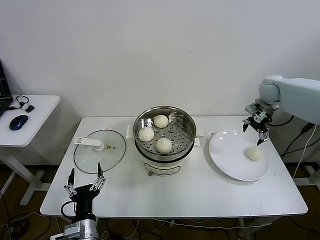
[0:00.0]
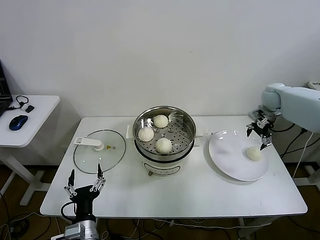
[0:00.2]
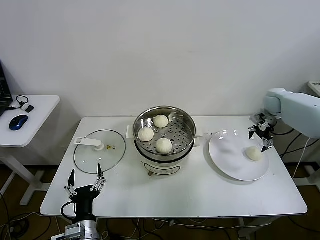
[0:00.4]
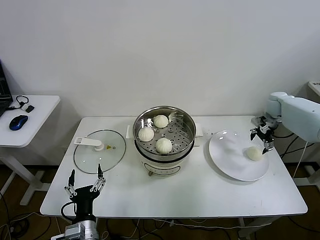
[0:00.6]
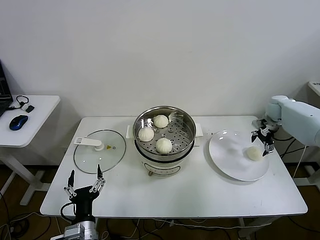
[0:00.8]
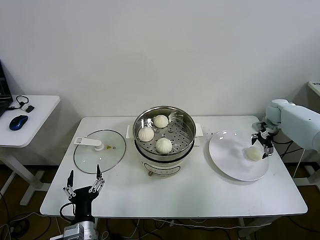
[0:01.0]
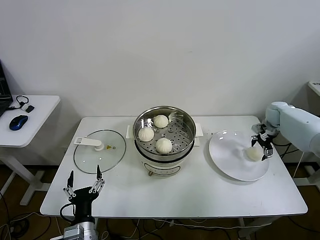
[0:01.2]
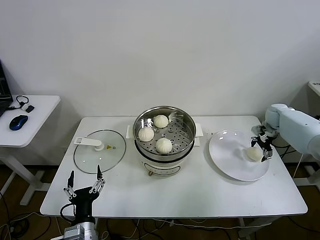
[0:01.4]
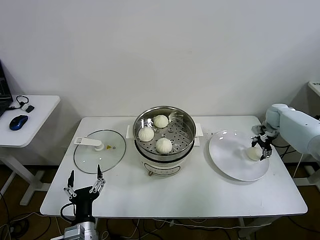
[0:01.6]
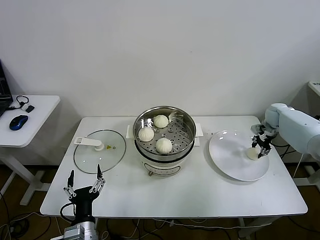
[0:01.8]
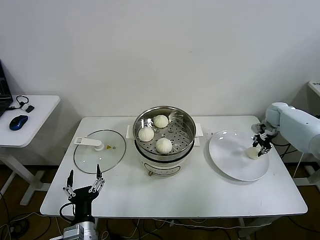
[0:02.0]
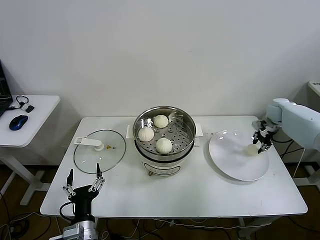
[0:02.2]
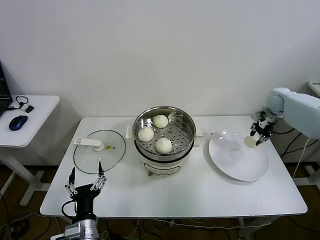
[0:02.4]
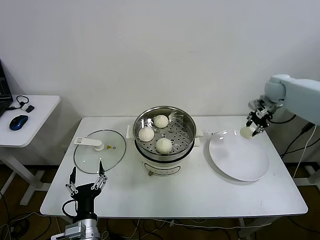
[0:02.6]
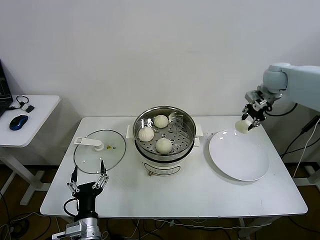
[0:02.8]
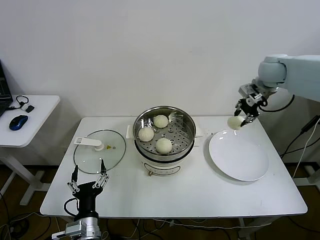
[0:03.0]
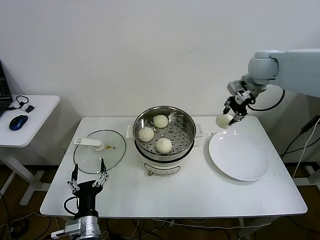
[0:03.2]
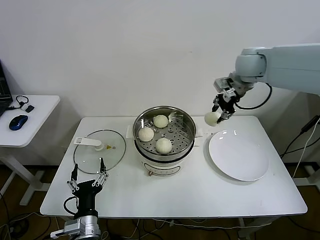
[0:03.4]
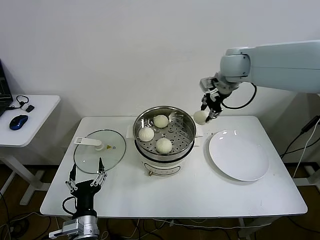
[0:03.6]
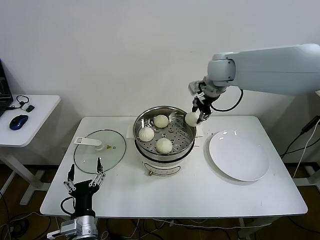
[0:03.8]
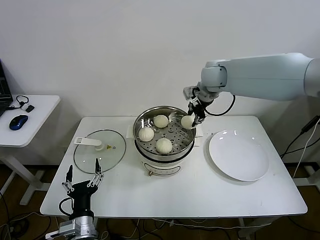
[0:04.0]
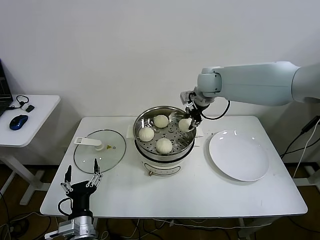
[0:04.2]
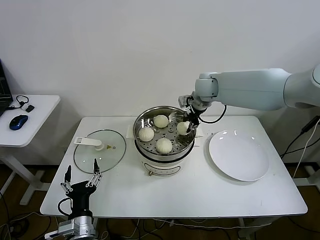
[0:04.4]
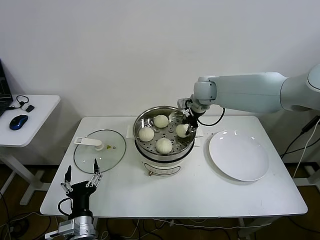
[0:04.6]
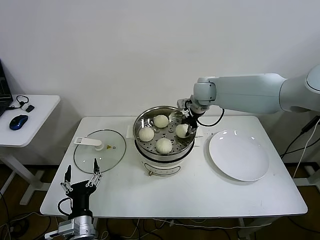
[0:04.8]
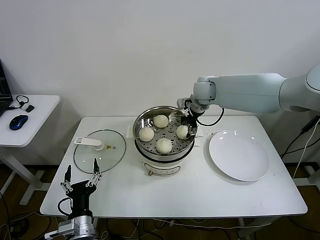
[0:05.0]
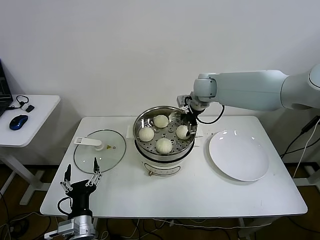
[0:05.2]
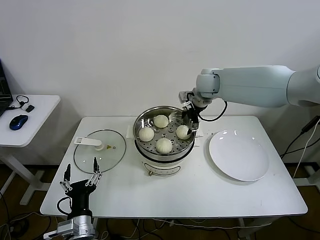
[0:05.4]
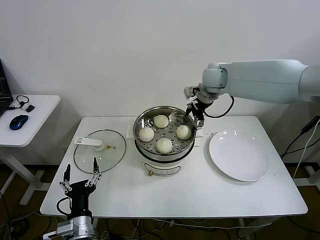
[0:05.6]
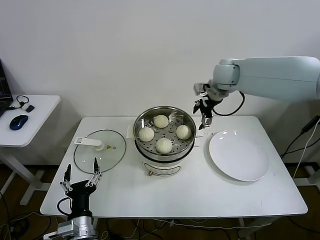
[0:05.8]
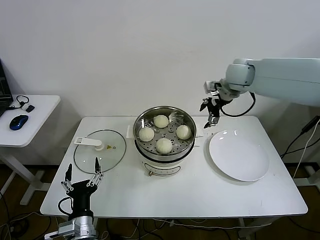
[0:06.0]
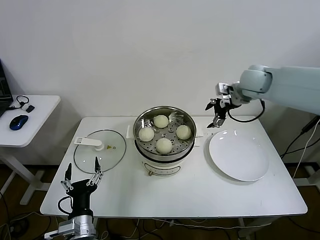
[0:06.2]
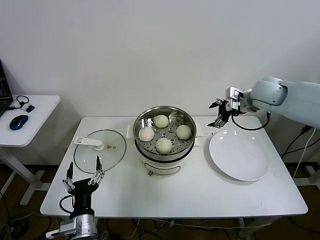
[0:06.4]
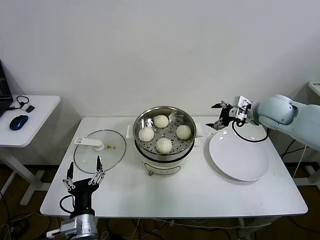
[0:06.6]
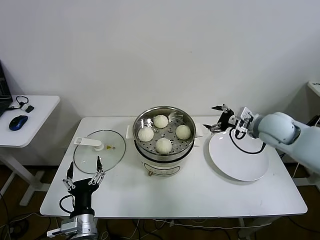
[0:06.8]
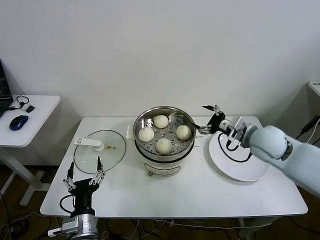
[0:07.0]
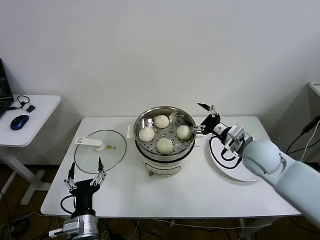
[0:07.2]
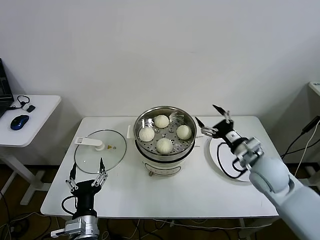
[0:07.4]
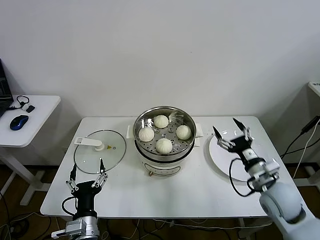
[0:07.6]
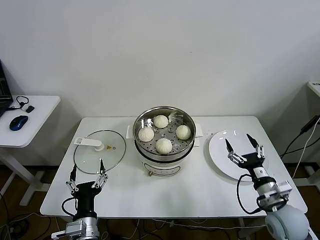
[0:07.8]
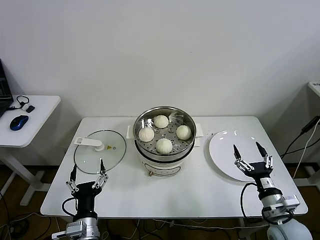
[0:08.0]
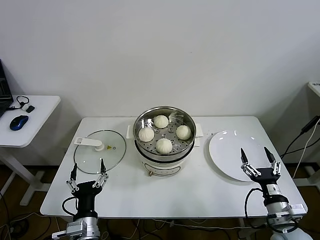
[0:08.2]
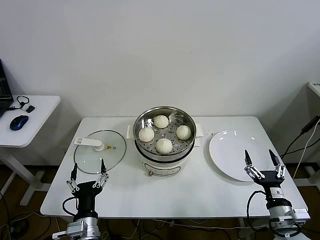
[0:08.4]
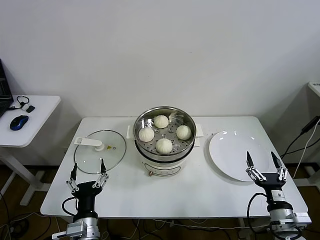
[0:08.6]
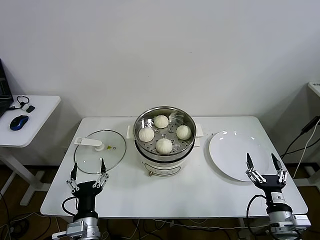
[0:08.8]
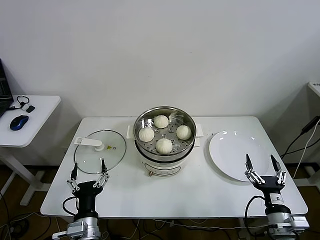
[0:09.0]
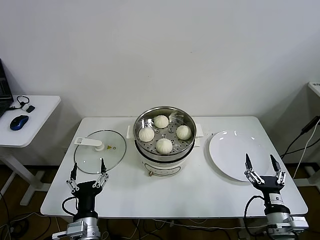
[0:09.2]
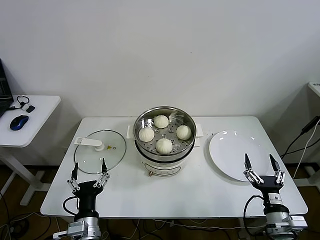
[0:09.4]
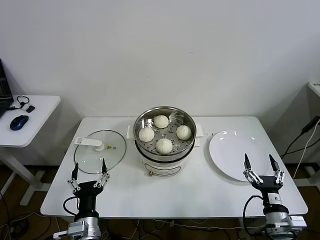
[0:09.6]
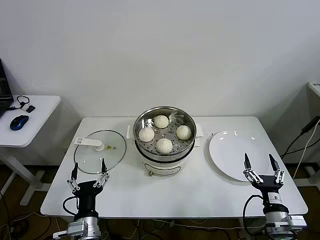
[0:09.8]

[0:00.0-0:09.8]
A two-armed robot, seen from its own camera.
Step, 0:00.0 to 0:01.8: Grasp the baozi in the plate with right gripper.
Step, 0:02.0 to 0:05.2: Place the baozi on the steamer with right gripper.
0:00.0 to 0:01.4: The right gripper travels downward and to the right by roughly 15 cm.
0:01.4 to 0:02.8: The right gripper is displaced upward and to the left by approximately 20 cm, and closes up.
0:02.8 to 0:04.2: The right gripper heads to the left, covering about 25 cm.
0:04.2 to 0:05.6: The right gripper opens up.
0:05.6 to 0:07.0: The right gripper travels backward, to the right and downward by roughly 25 cm.
0:07.0 to 0:08.4: The right gripper moves backward and downward, approximately 30 cm.
0:08.4 to 0:09.8: There are only small adjustments of the grippers.

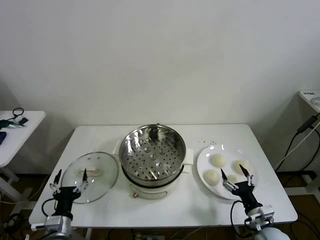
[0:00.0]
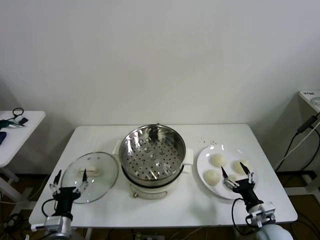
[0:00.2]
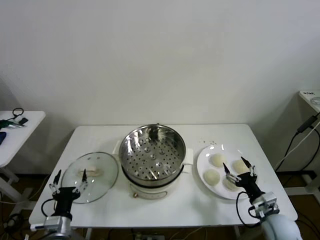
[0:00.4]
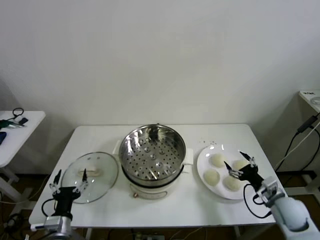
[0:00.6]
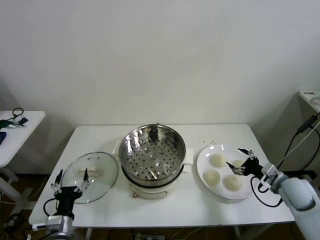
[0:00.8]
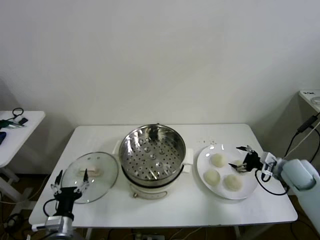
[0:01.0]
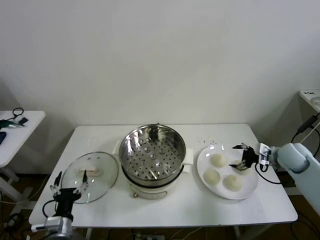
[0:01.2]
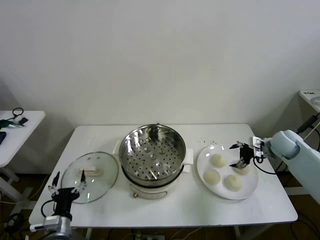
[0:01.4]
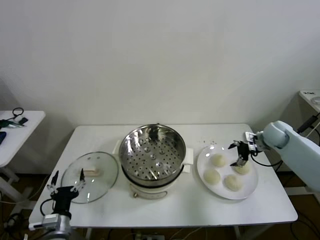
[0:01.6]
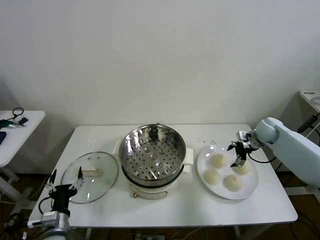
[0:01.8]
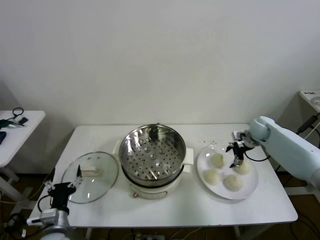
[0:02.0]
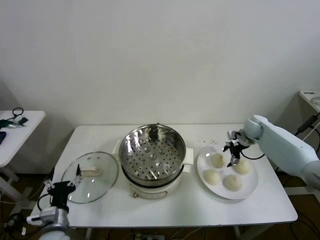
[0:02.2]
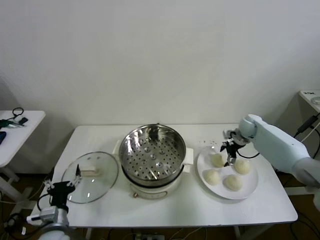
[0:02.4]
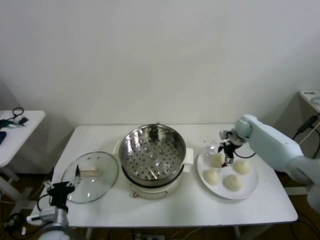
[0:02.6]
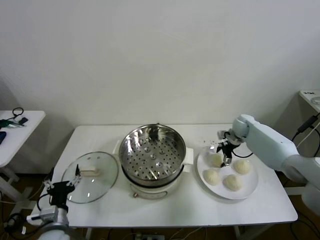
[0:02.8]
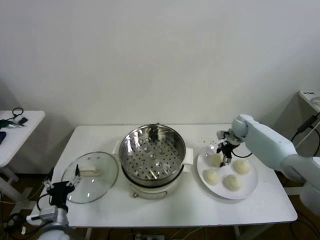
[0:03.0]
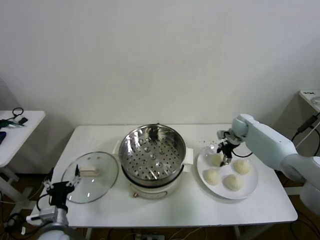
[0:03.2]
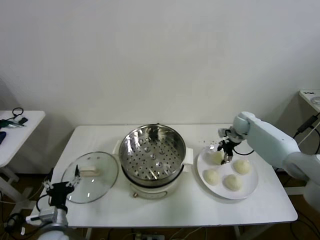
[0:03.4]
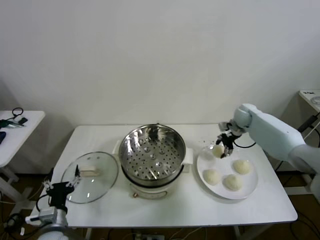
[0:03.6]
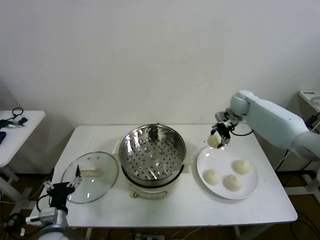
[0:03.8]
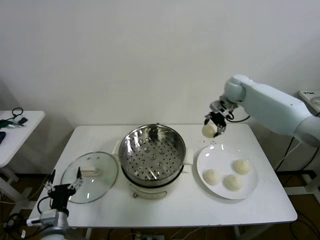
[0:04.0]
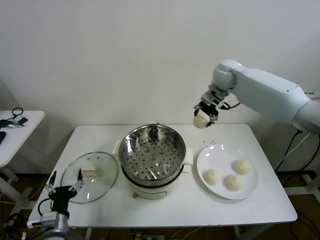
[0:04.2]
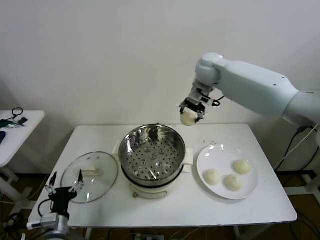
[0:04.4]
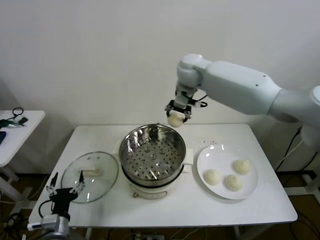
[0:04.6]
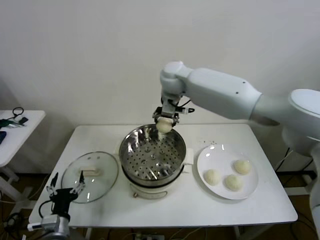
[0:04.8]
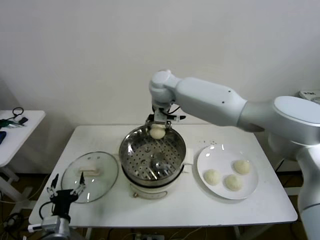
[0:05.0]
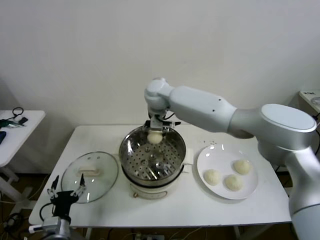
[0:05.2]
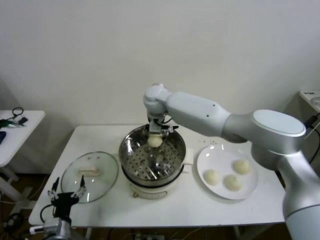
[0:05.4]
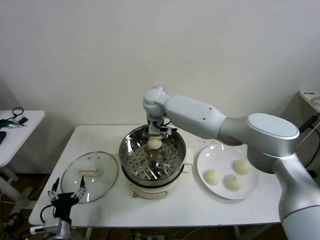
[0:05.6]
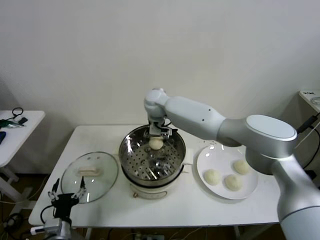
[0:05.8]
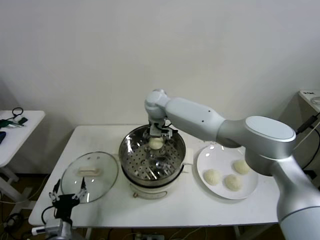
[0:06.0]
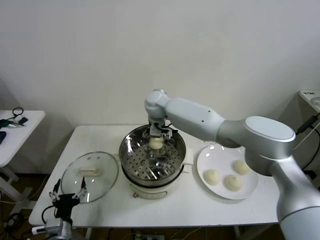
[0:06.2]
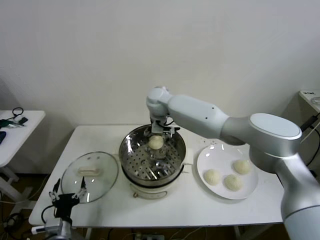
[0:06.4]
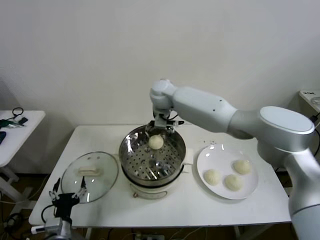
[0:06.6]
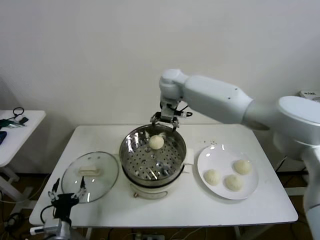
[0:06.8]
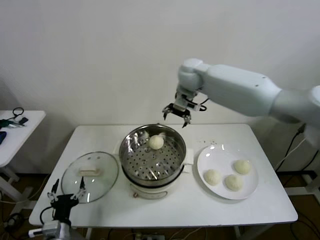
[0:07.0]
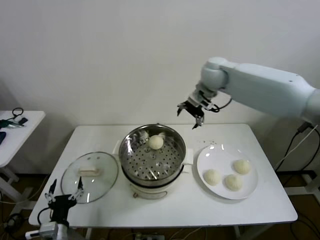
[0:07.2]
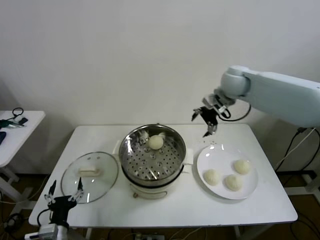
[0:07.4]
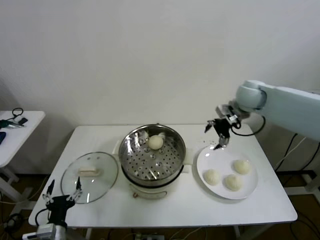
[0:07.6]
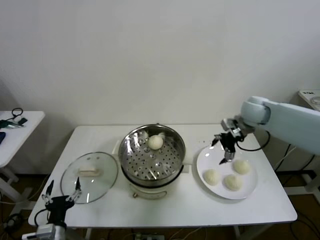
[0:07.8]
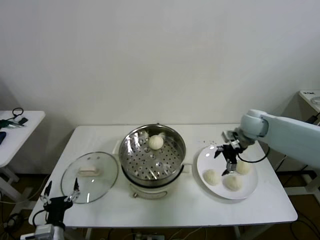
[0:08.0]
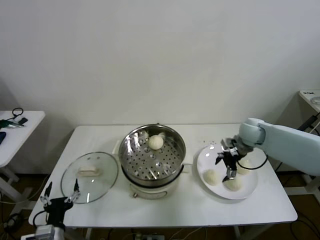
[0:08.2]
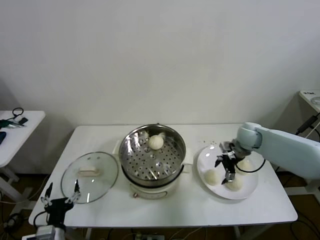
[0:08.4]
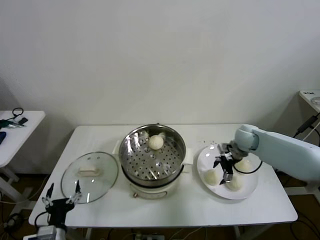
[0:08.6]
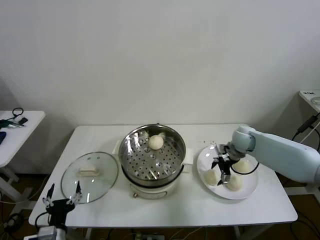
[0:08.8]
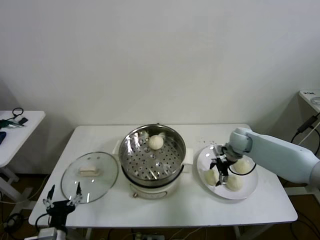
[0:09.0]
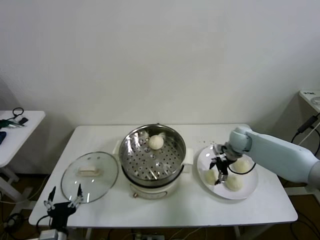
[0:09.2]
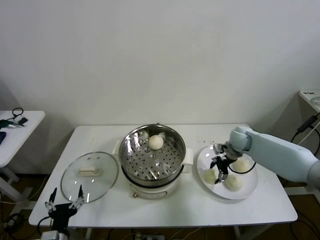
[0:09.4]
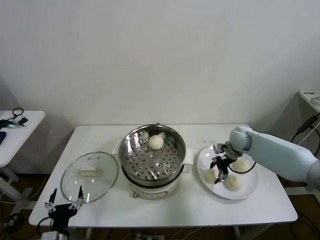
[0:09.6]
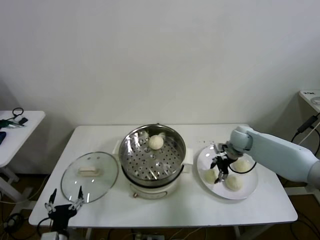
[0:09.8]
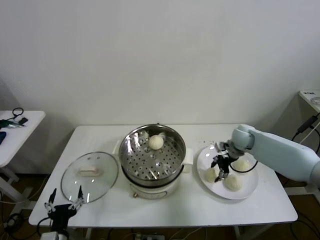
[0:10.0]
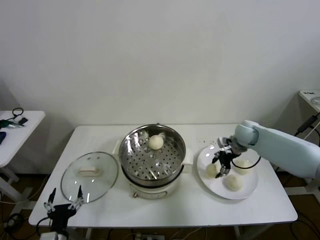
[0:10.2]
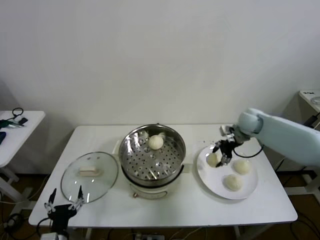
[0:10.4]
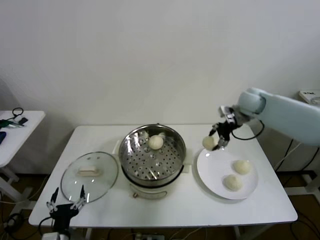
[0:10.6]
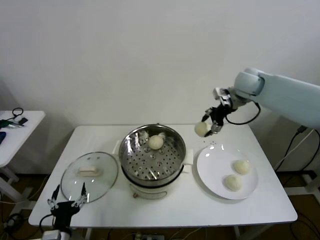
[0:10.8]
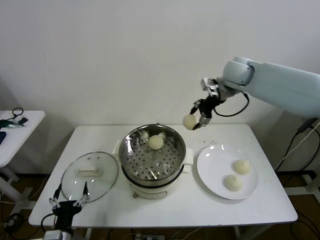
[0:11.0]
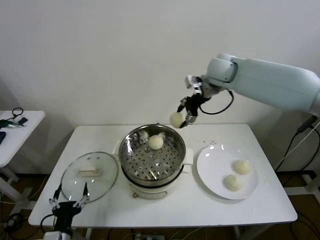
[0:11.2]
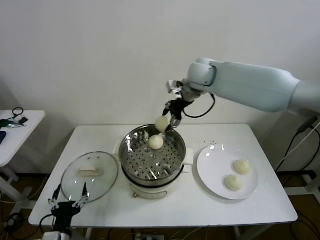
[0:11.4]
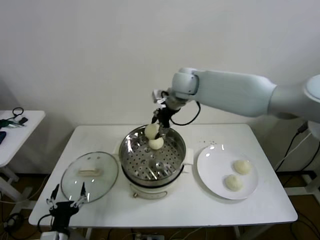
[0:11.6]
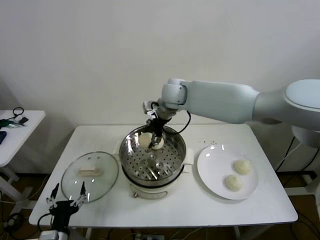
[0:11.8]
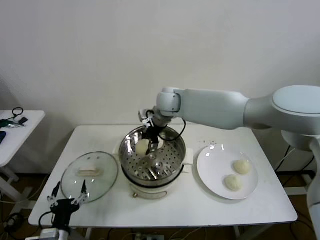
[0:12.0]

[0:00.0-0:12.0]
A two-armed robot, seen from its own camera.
Step, 0:00.0 to 0:03.0: Grasp the baozi in the plate with right gripper.
Step, 0:03.2 to 0:06.0: Place the baozi on the steamer with right gripper.
Step, 0:06.2 to 0:09.6: Grasp the baozi in the plate with right gripper.
0:01.6 to 0:03.0: The right gripper is displaced forward and to the left by approximately 10 cm, and closes its fingers.
0:03.0 to 0:04.4: The right gripper travels upward and to the left by roughly 35 cm.
0:04.4 to 0:06.0: The right gripper goes some 20 cm to the left and downward, and opens up.
0:06.0 to 0:07.6: The right gripper heads to the right, covering approximately 35 cm.
0:07.6 to 0:09.0: The right gripper is displaced downward by some 15 cm.
0:09.0 to 0:10.4: The right gripper moves upward, approximately 10 cm, and closes up.
0:10.4 to 0:12.0: The right gripper travels to the left by approximately 30 cm.
